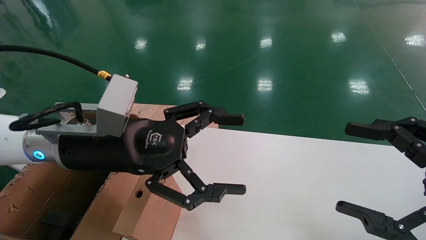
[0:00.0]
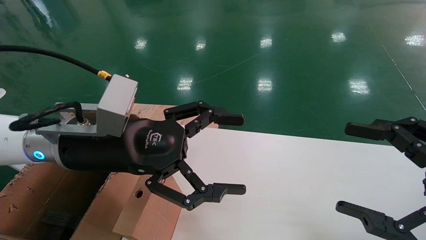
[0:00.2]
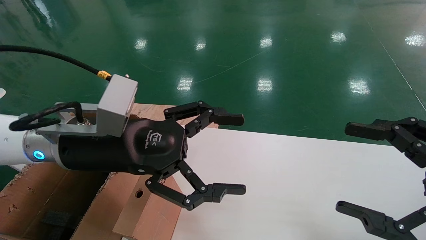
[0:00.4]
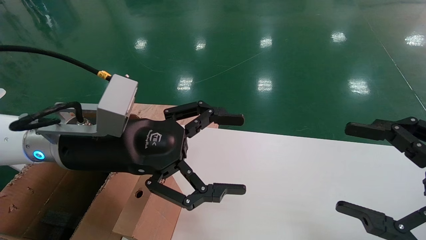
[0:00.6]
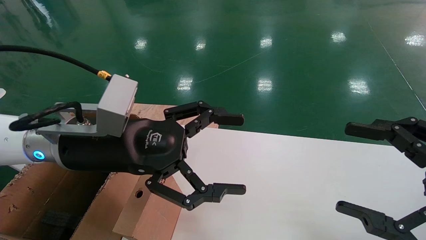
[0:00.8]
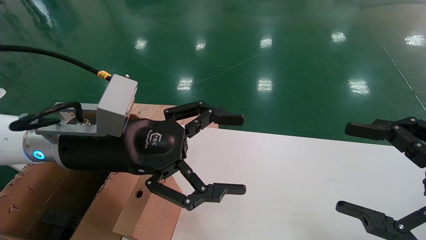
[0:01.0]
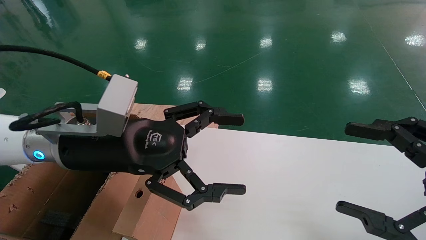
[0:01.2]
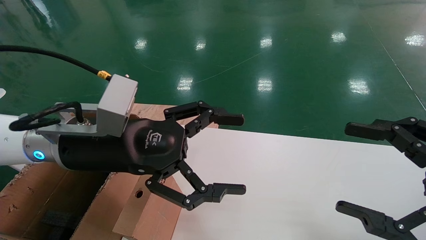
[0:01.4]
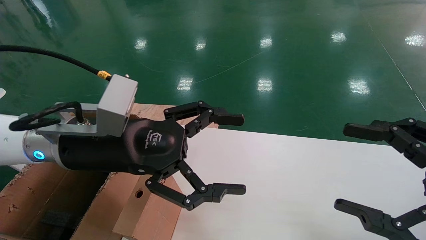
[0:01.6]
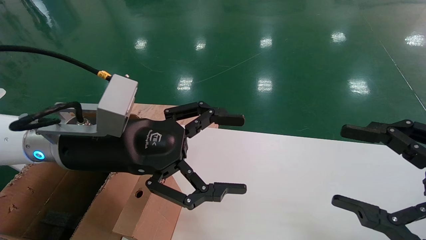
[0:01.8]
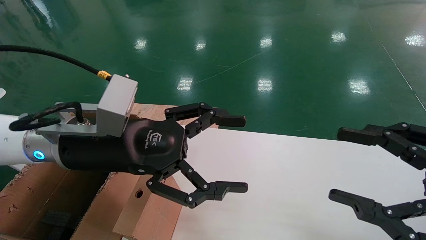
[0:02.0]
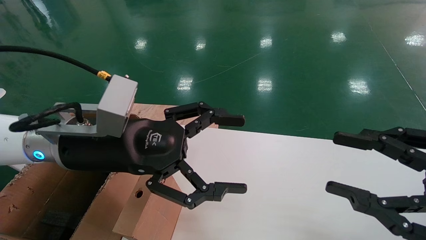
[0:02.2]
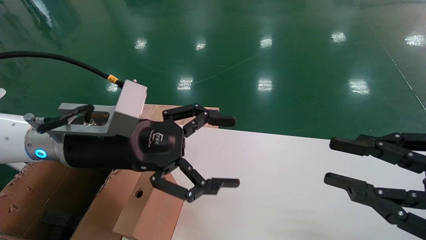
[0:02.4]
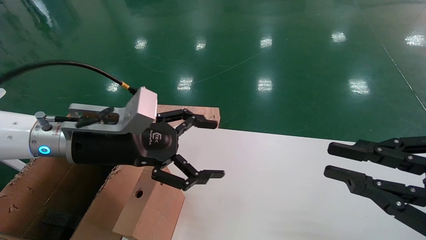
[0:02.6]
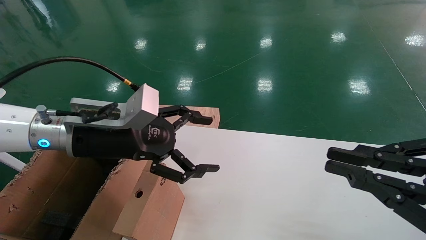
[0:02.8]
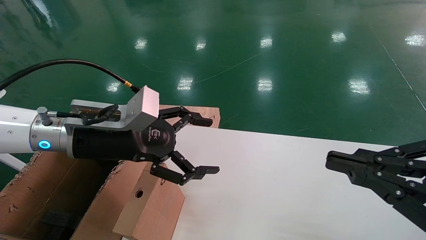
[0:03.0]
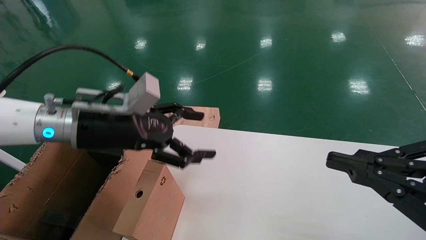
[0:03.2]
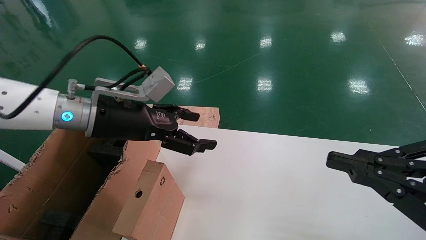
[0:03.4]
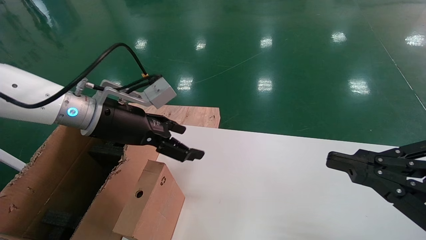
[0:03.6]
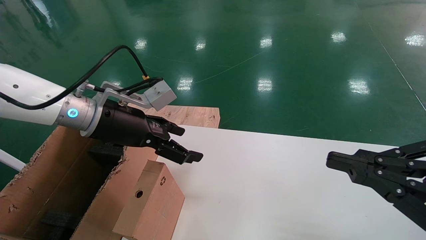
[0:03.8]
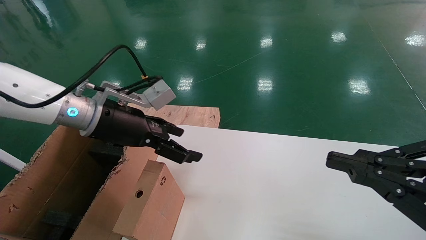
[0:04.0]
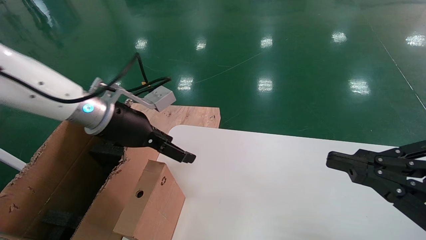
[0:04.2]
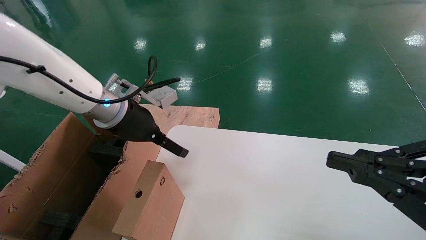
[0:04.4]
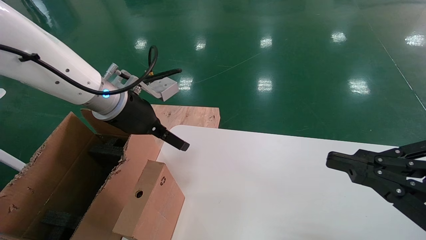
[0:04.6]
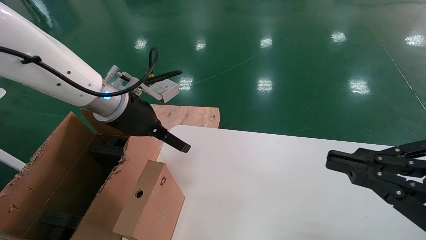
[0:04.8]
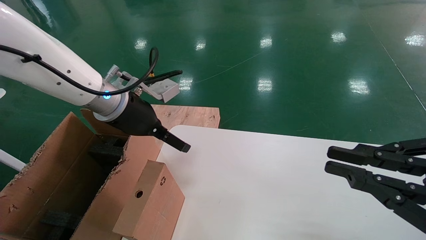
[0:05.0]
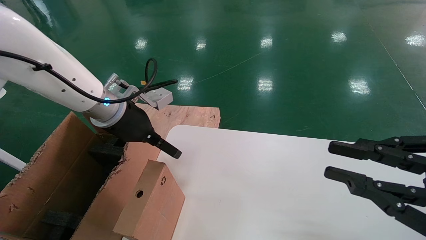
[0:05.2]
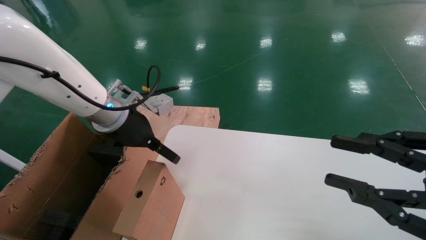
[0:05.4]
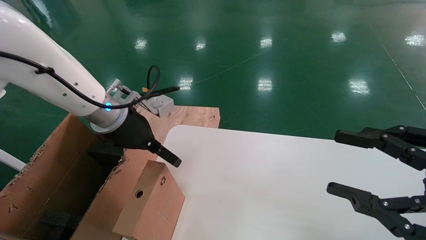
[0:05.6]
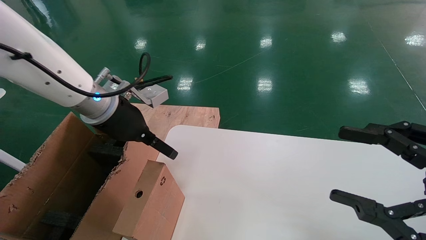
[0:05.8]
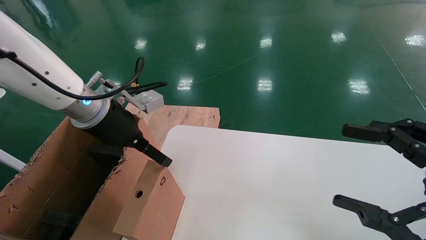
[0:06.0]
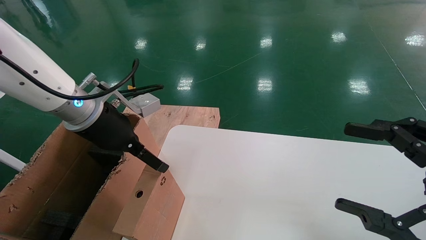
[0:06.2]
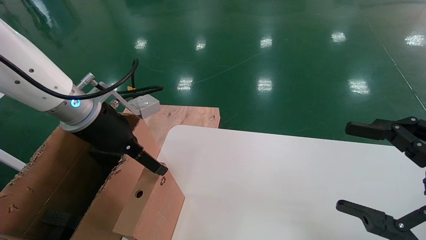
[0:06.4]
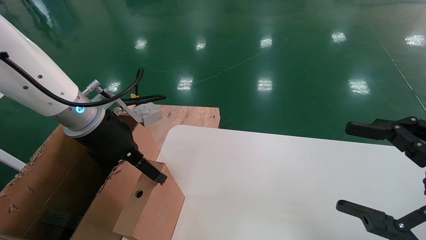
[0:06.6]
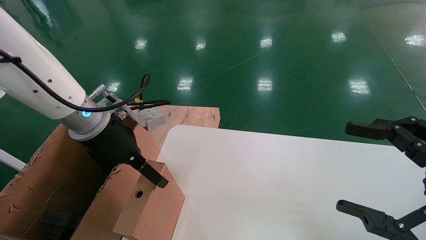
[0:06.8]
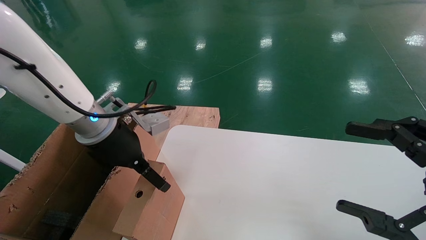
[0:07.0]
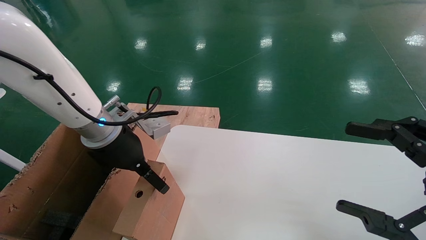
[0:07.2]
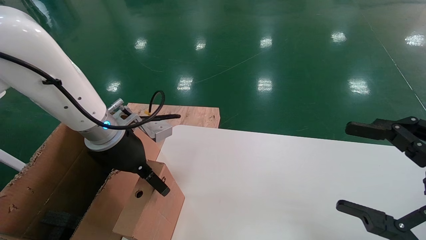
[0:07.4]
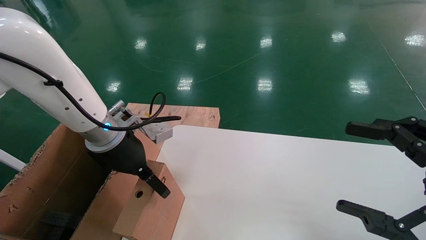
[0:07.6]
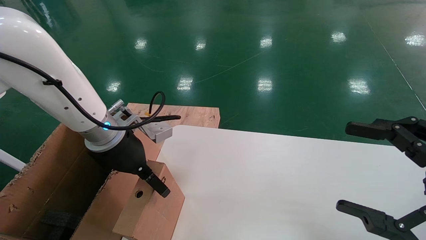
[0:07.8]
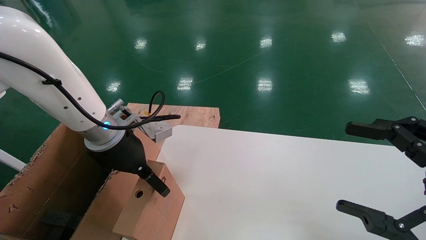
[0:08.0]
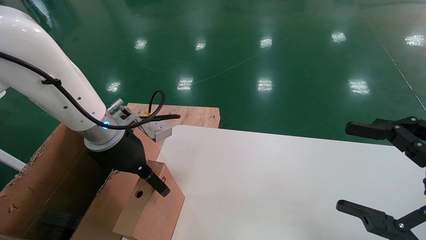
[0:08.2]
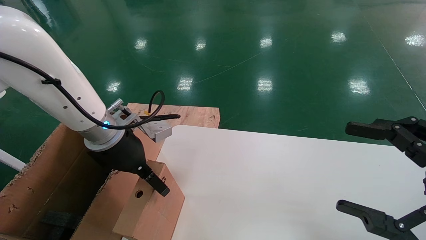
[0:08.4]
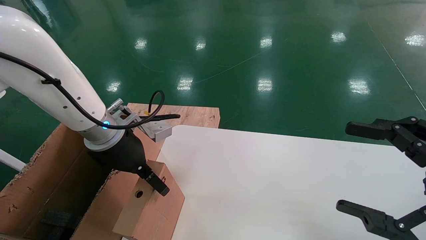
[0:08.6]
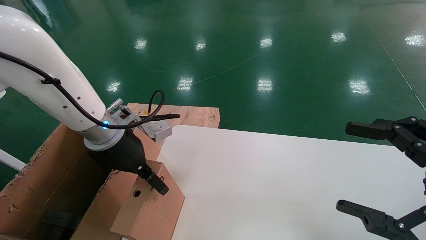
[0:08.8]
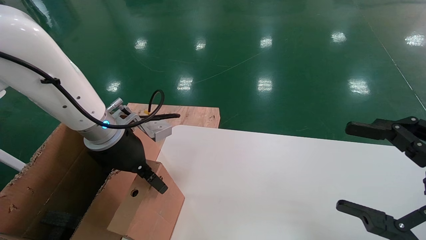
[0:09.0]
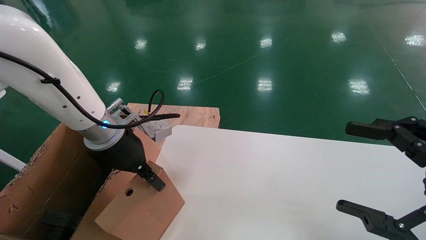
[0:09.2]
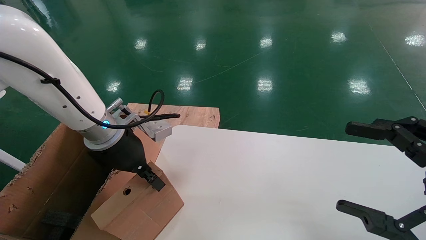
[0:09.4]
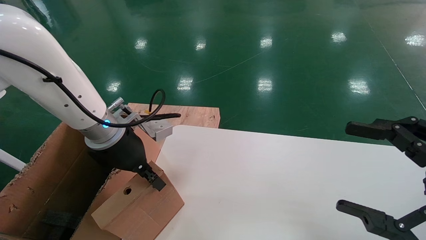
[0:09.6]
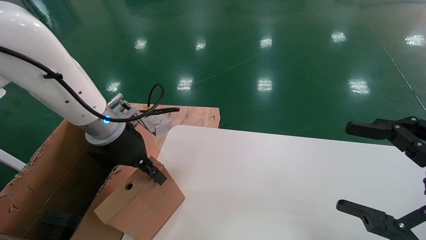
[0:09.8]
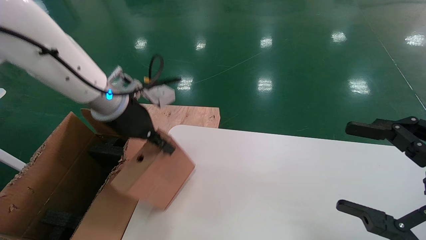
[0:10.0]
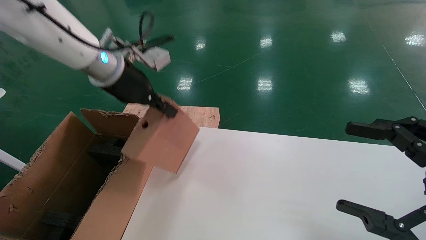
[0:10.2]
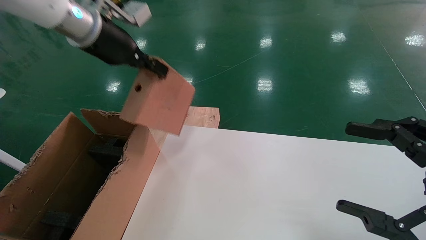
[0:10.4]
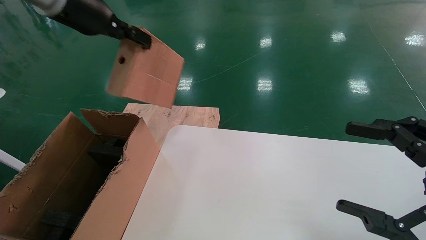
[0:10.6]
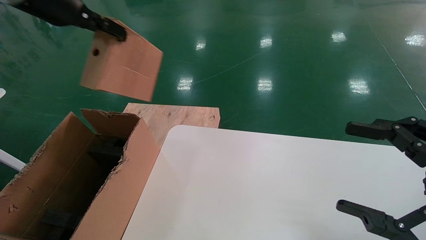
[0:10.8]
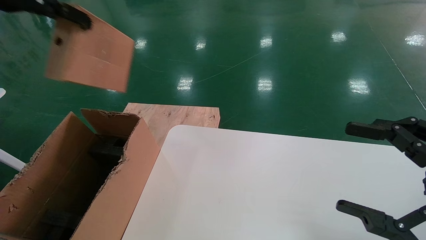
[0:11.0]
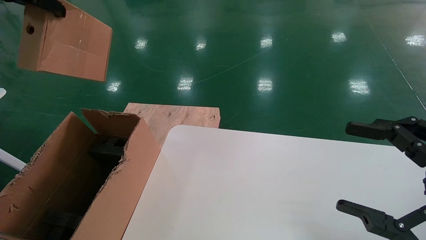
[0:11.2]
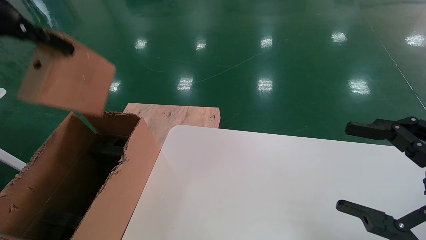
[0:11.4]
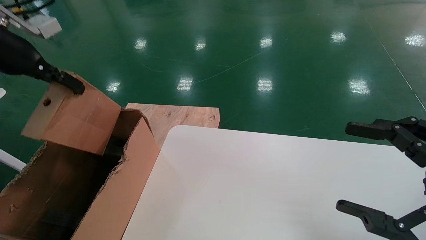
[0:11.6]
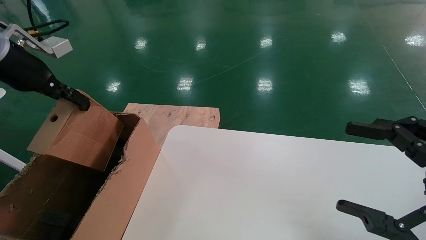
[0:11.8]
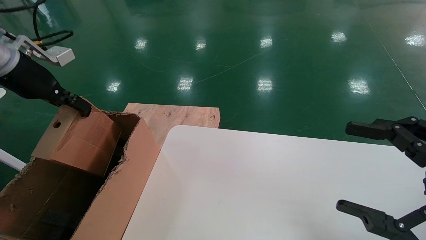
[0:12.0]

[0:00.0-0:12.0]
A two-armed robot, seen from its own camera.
Task of the whole recording: place the small box on the table into the large box on the left.
Step, 0:01.2 to 0:06.6: Pick up the mouse and the power cord paper box.
0:00.0 to 0:01.6: Both grippers stay put.
0:01.6 to 0:03.0: The right gripper closes up. Meanwhile the left gripper shifts by approximately 5 cm.
0:03.0 to 0:04.4: The left gripper goes roughly 5 cm forward.
0:04.4 to 0:06.0: The right gripper opens.
0:06.0 to 0:07.6: The left gripper shifts by roughly 5 cm.
0:07.6 to 0:09.0: Neither gripper changes place.
0:09.0 to 0:10.4: The left gripper is displaced upward by roughly 15 cm, and closes.
0:10.4 to 0:12.0: The left gripper shifts about 15 cm to the left.

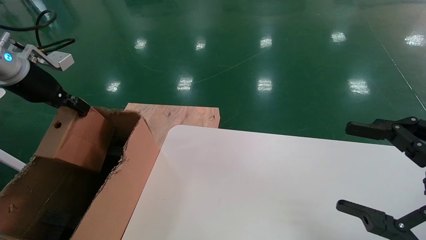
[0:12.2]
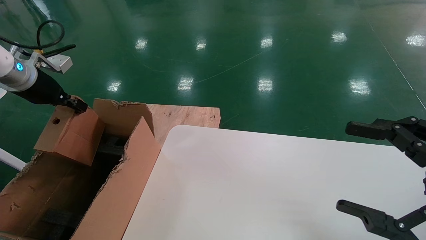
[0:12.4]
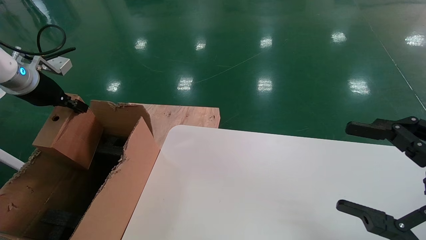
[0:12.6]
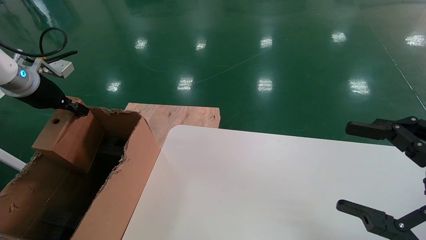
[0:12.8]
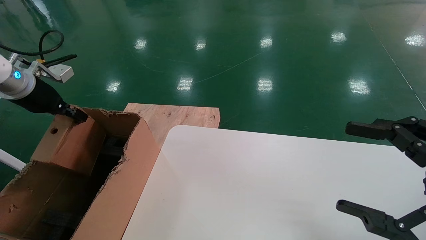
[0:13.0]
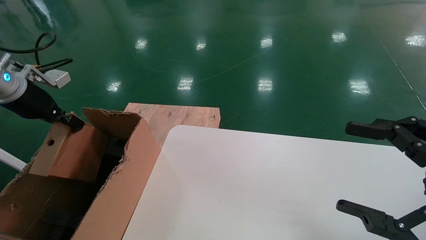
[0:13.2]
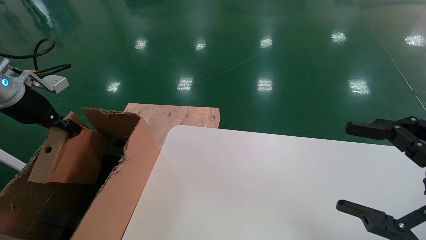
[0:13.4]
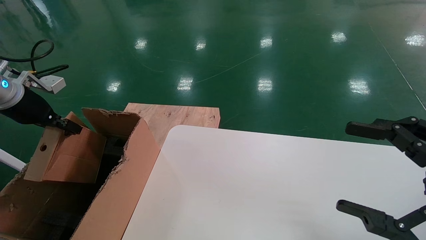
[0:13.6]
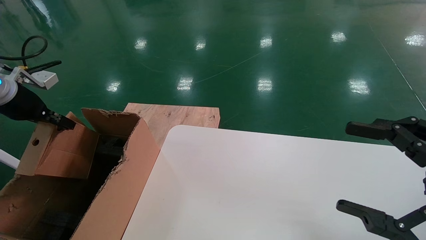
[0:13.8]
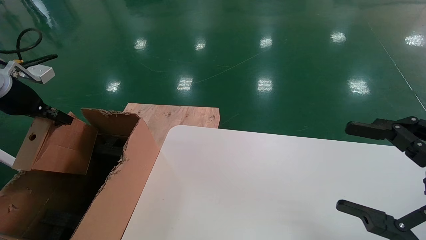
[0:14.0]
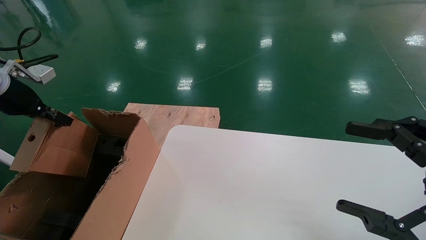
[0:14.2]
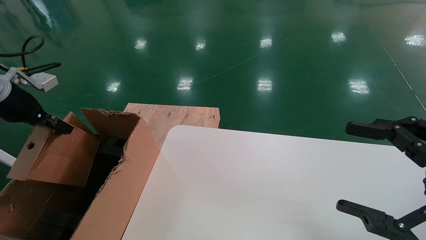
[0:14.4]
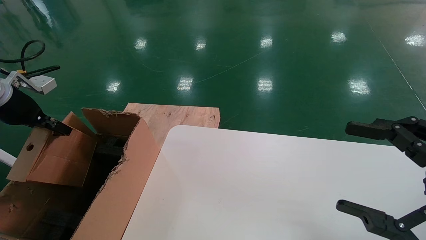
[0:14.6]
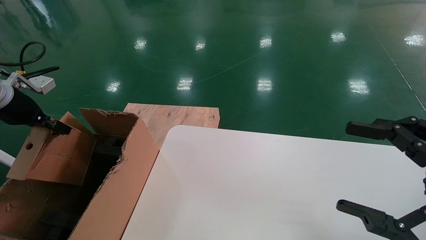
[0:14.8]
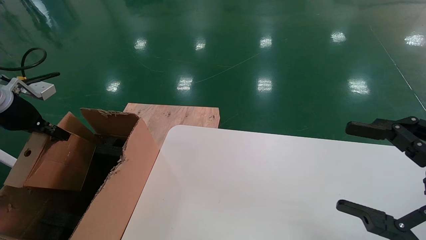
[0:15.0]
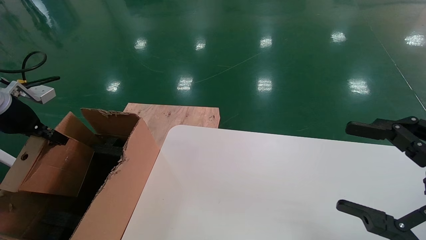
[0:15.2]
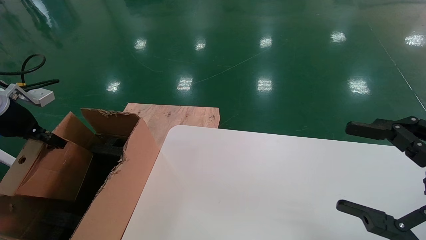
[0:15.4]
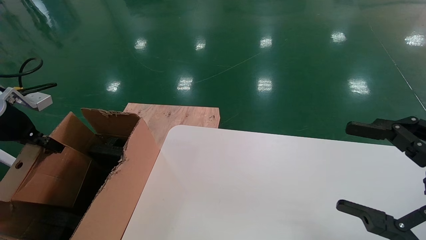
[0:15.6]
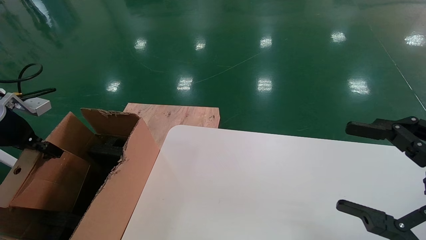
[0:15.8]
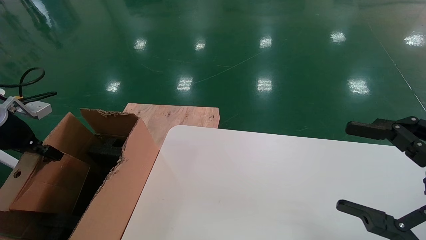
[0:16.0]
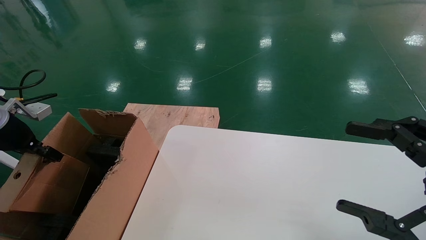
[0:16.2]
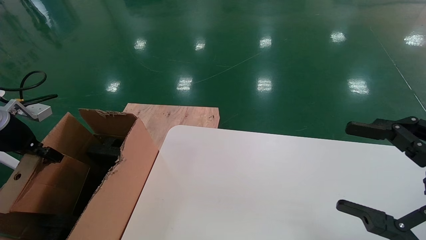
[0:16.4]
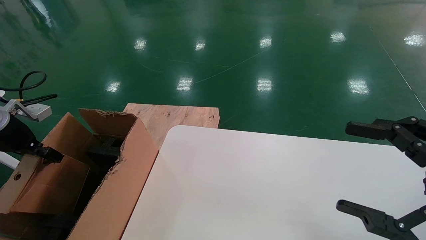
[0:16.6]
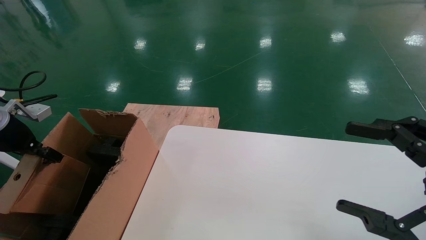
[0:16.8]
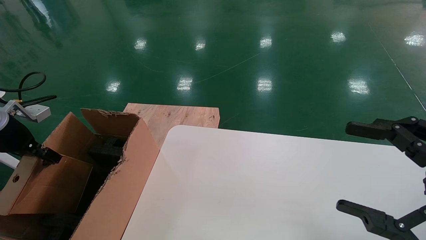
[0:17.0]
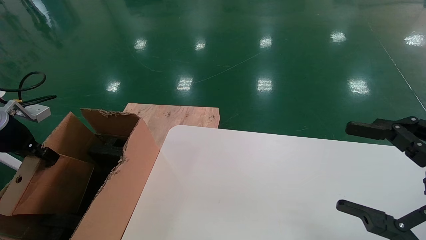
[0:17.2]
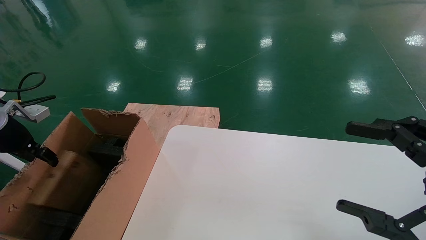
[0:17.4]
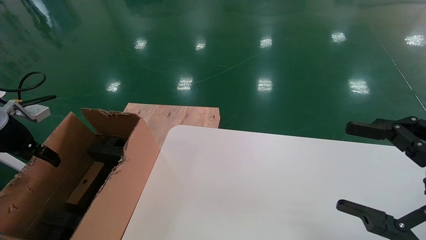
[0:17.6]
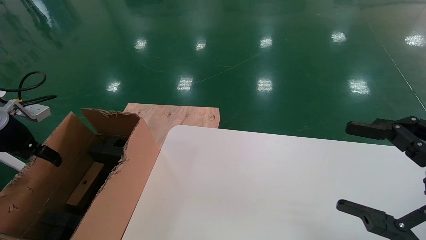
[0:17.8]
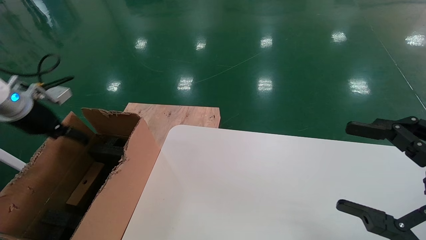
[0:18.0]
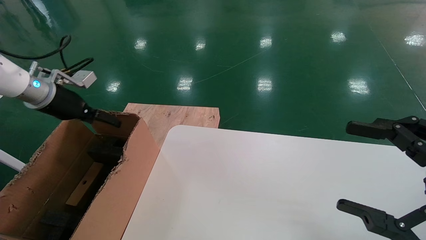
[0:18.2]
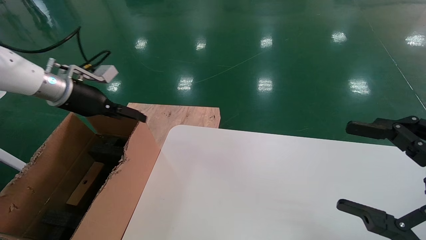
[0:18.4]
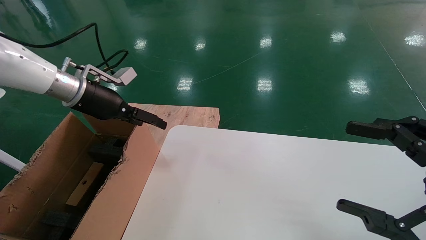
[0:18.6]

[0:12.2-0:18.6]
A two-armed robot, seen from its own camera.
Task of the whole recording: place the small box on the table into the large box on the left.
0:12.2 to 0:13.8: The left gripper shifts by roughly 5 cm.
0:13.8 to 0:15.4: The grippers stay close to where they were, moving slightly.
0:15.4 to 0:17.0: There are only small adjustments of the grippers.
0:17.0 to 0:18.6: The left gripper is displaced to the right and forward by roughly 20 cm, and opens up.
